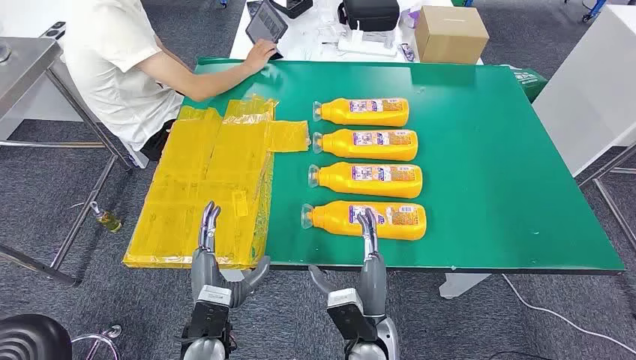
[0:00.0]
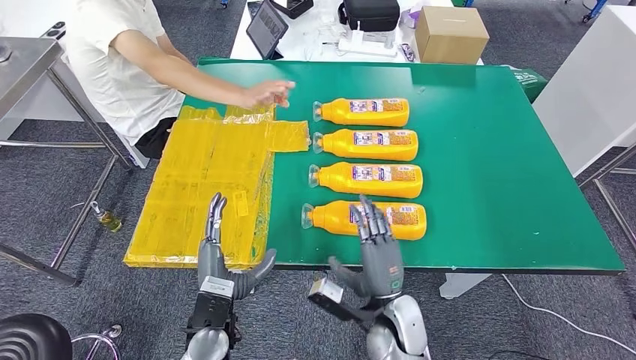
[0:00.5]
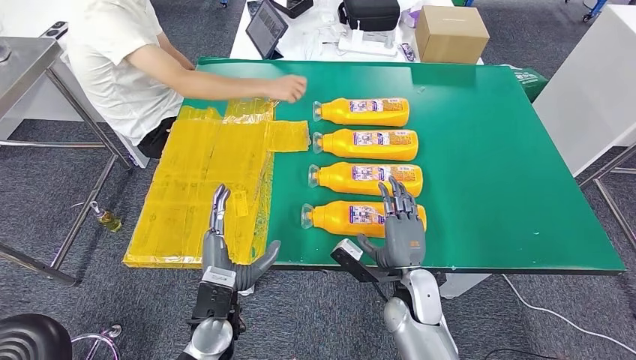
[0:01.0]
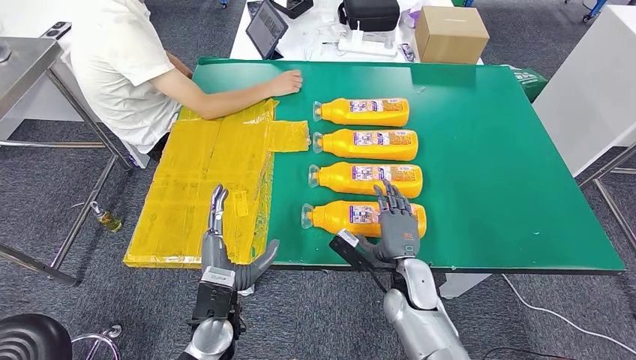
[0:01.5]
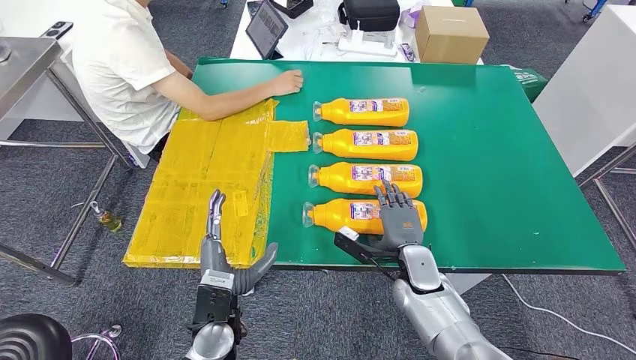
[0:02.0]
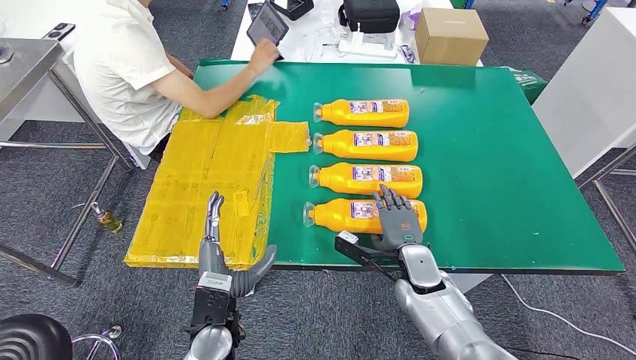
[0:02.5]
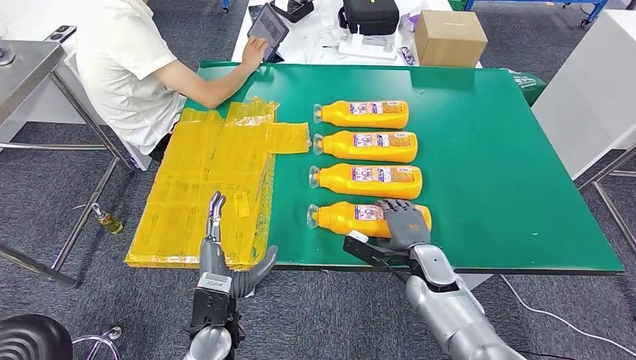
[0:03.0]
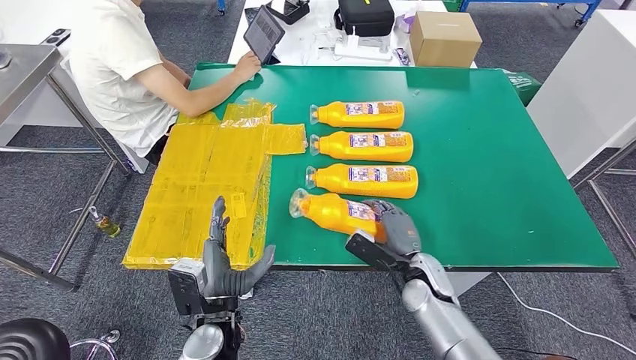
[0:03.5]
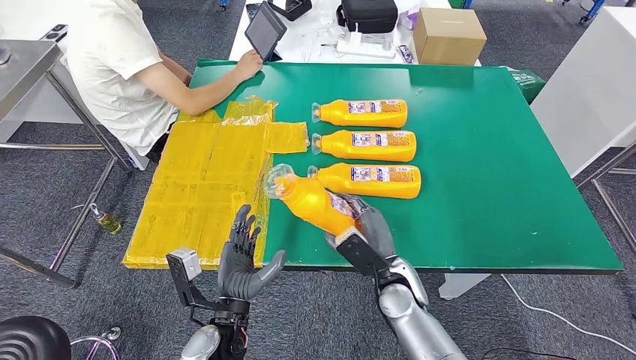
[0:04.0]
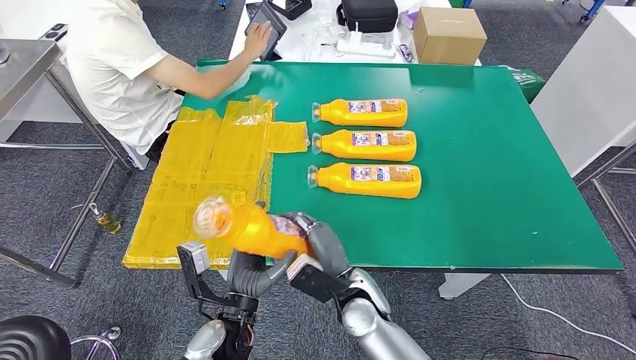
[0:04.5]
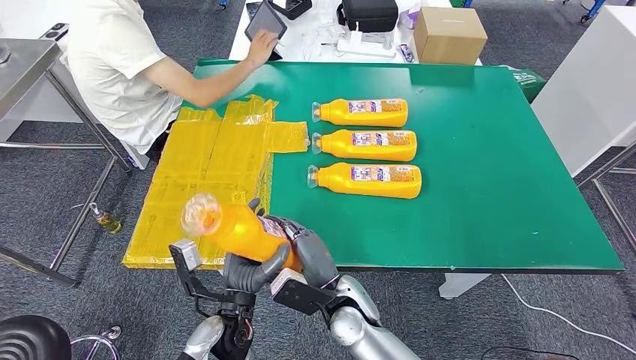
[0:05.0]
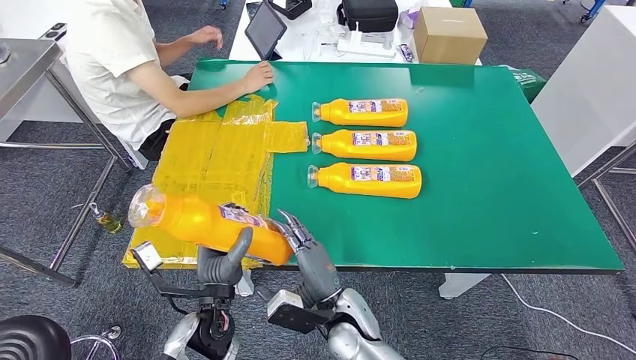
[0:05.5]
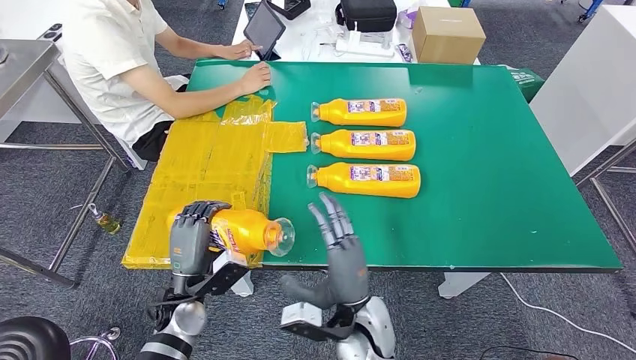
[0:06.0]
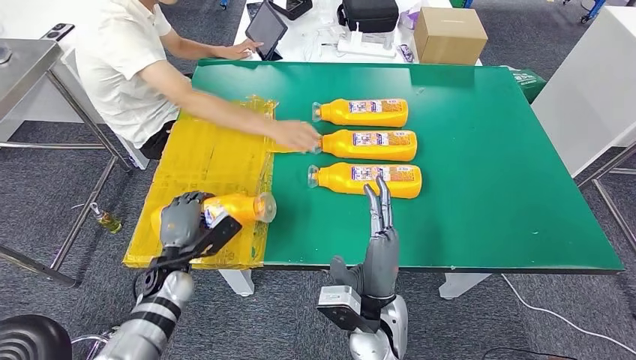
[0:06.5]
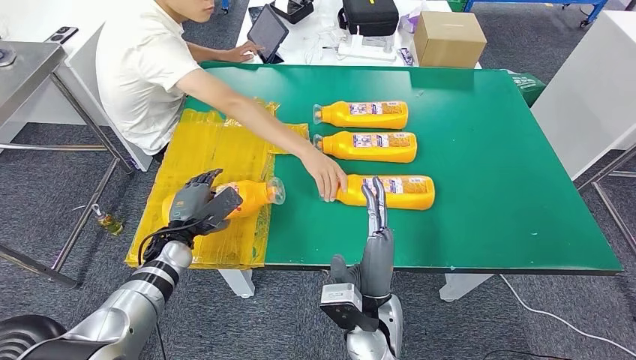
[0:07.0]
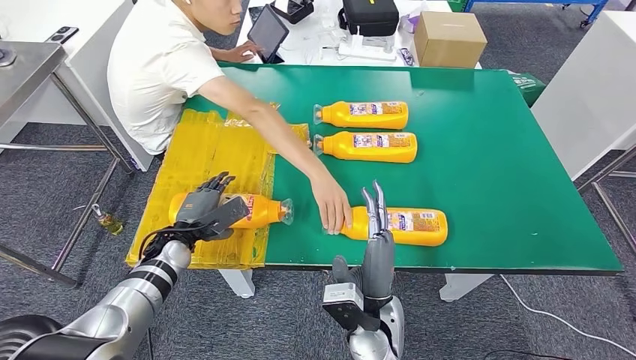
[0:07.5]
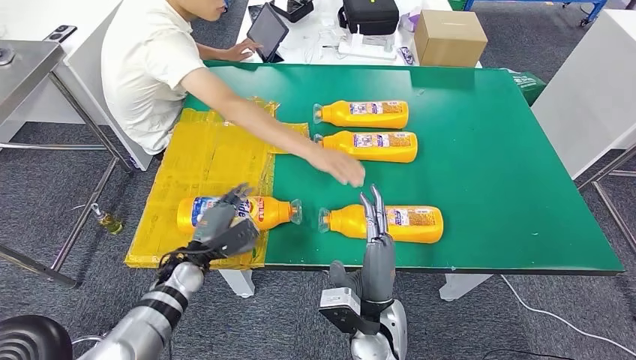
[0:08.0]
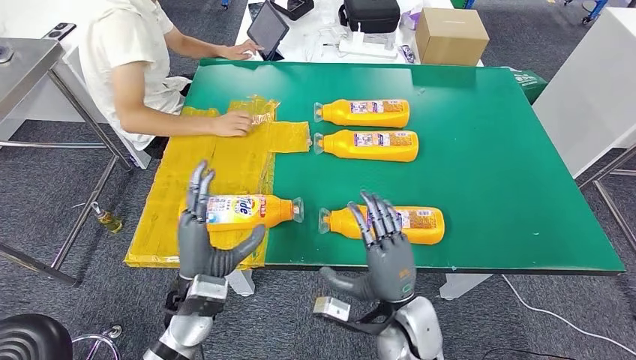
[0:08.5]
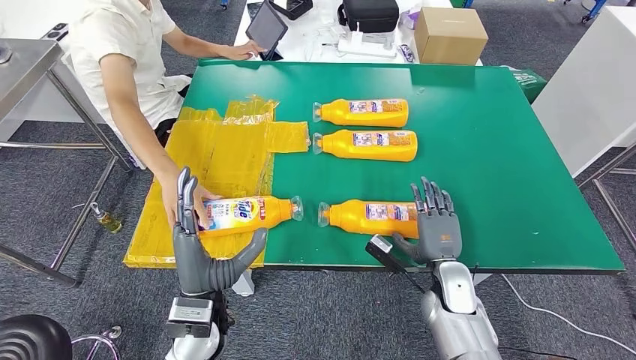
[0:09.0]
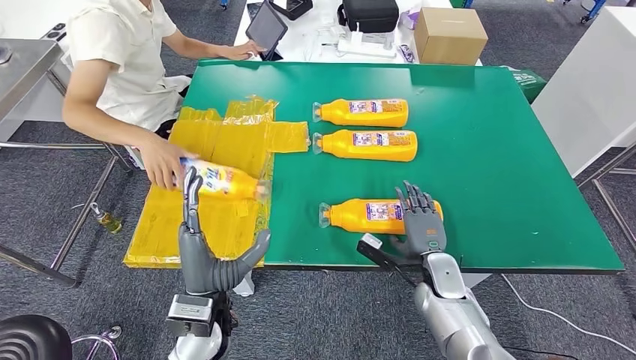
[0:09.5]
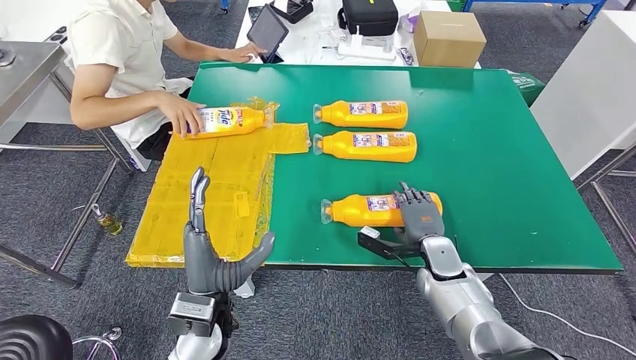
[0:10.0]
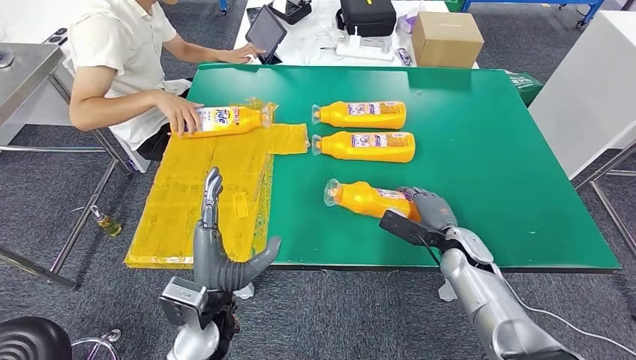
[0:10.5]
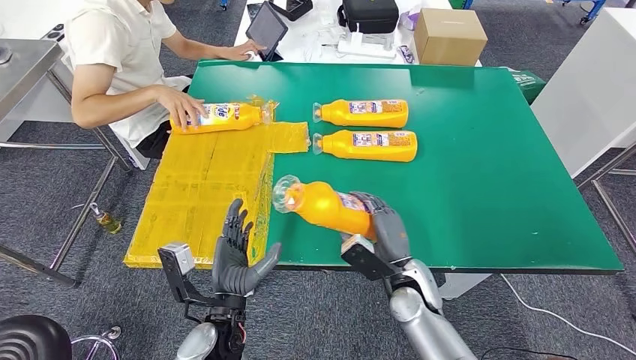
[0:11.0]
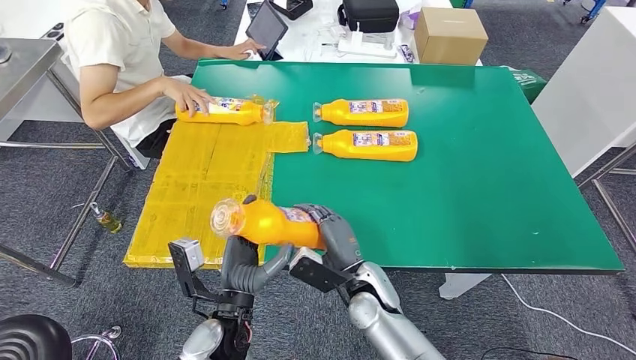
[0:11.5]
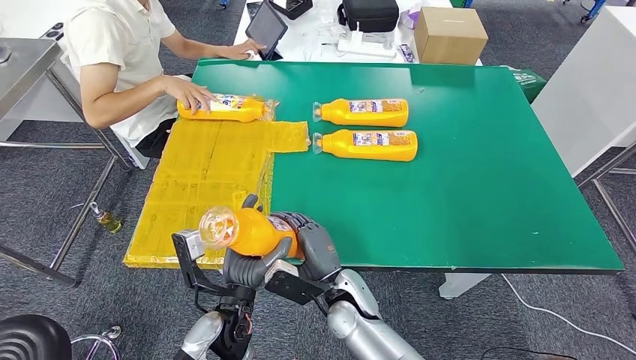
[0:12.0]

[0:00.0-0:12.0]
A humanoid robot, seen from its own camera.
Step, 0:00.0 to 0:05.0: Take the fast-moving consumer goods bottle from the table.
Step, 0:05.5 to 0:07.5: Flip the fast-moving consumer goods bottle to the front side.
0:02.0 to 0:04.0: The right hand ends up roughly 5 cm from where it was.
0:04.0 to 0:06.0: The right hand goes approximately 10 cm to the left and backward. The left hand moves to the left and forward, about 10 cm.

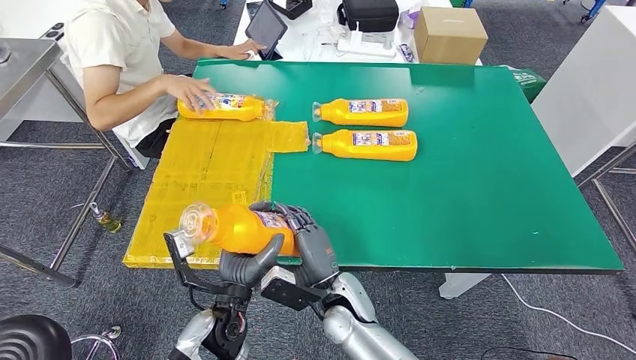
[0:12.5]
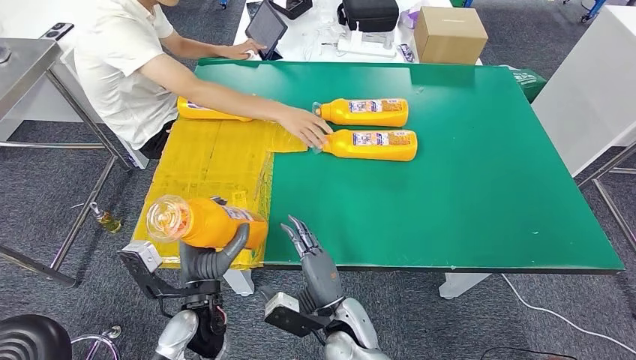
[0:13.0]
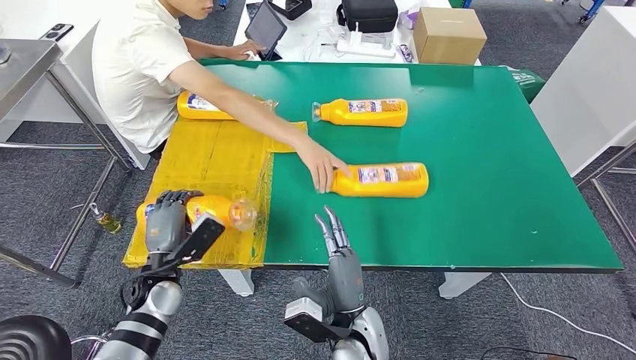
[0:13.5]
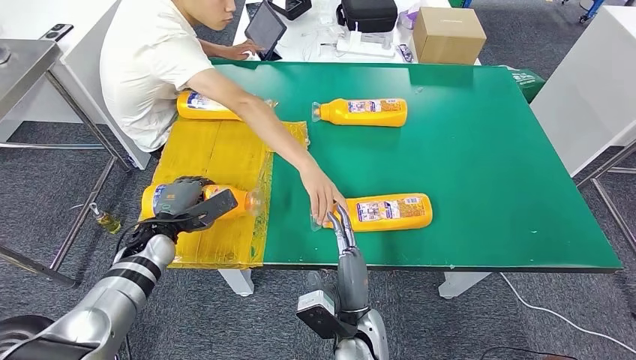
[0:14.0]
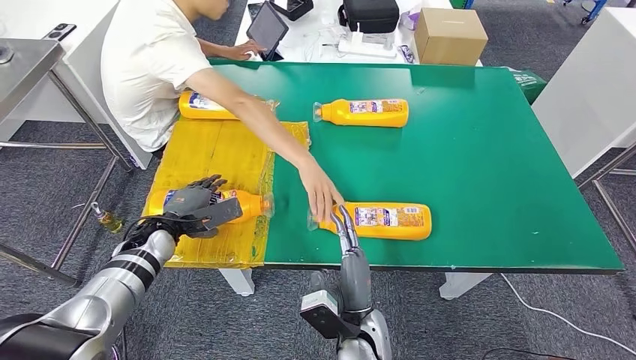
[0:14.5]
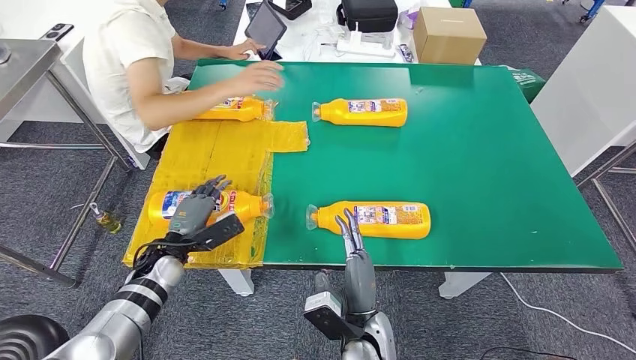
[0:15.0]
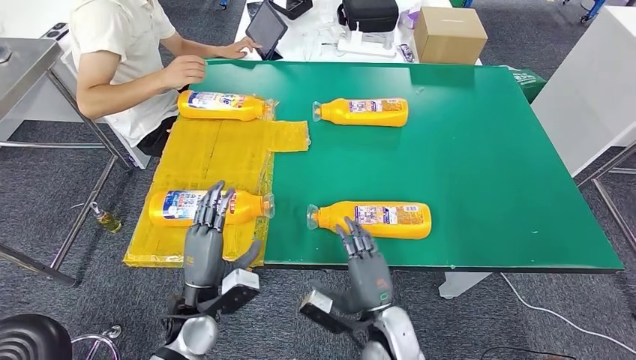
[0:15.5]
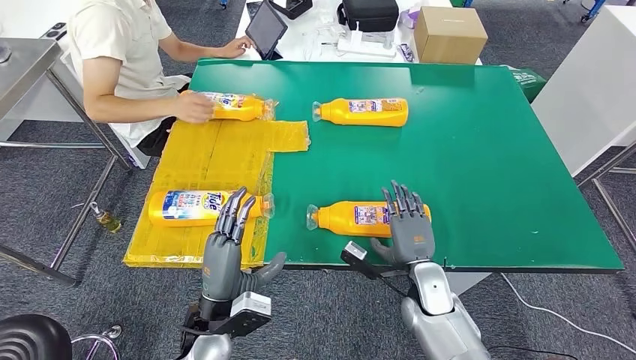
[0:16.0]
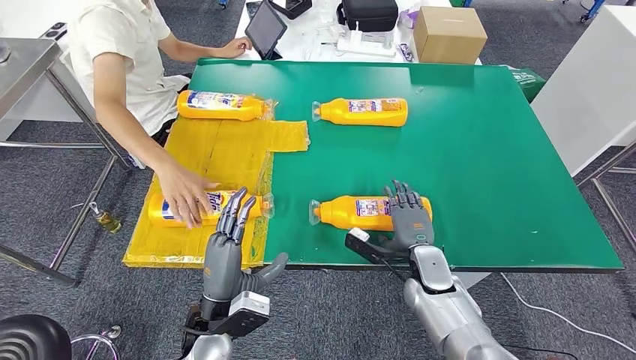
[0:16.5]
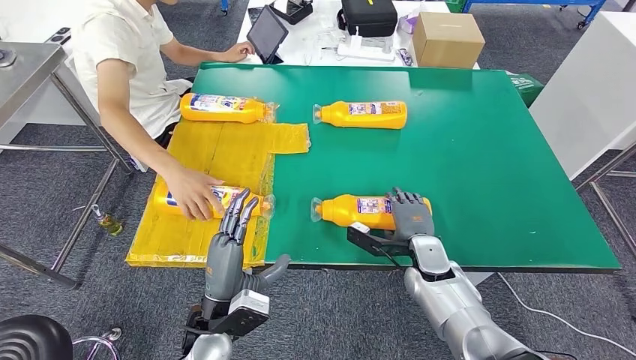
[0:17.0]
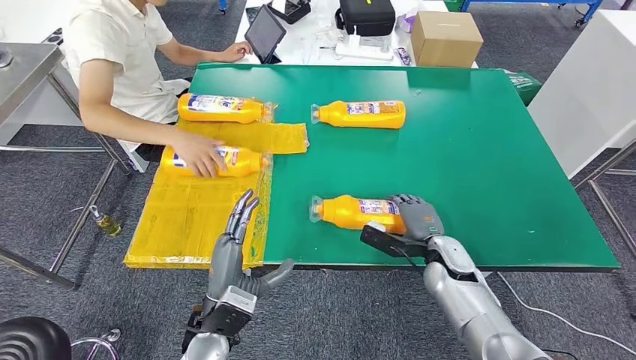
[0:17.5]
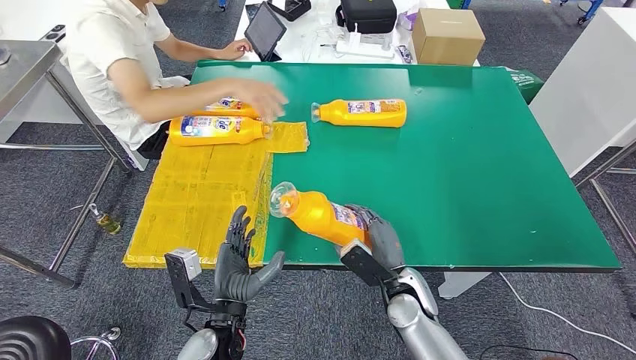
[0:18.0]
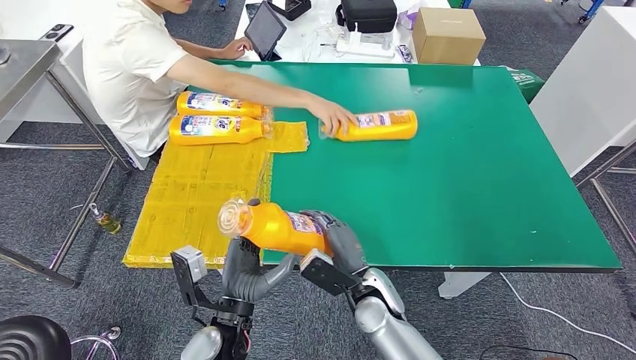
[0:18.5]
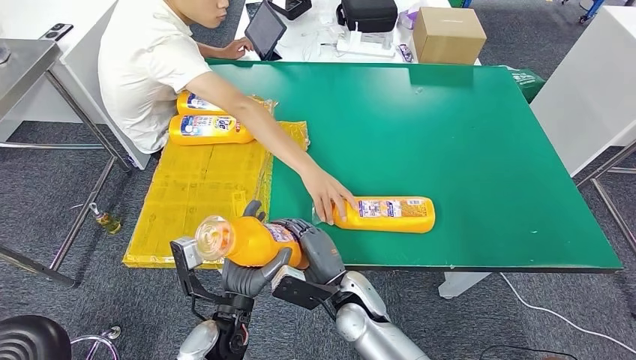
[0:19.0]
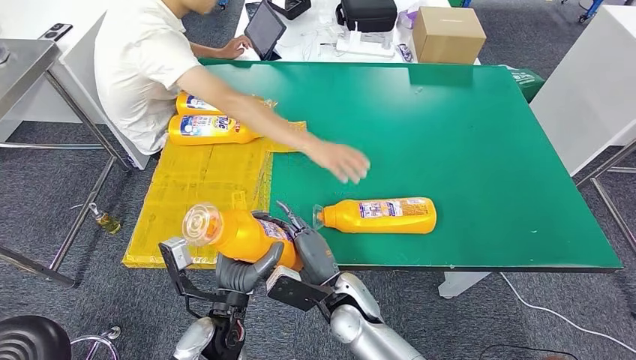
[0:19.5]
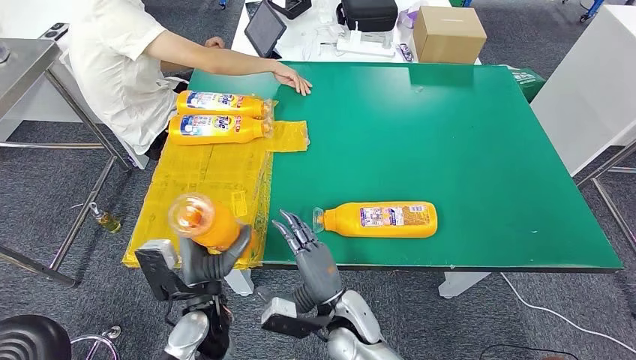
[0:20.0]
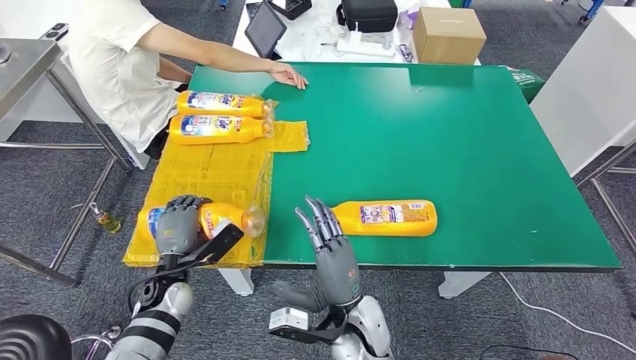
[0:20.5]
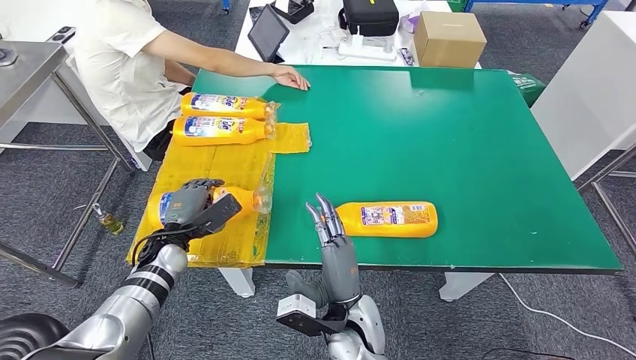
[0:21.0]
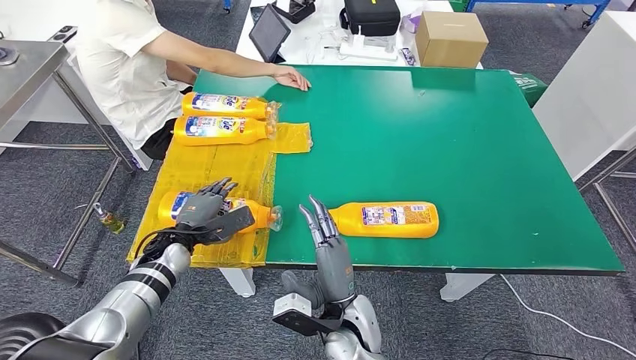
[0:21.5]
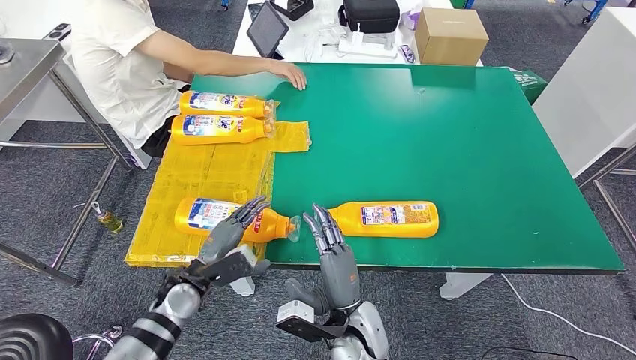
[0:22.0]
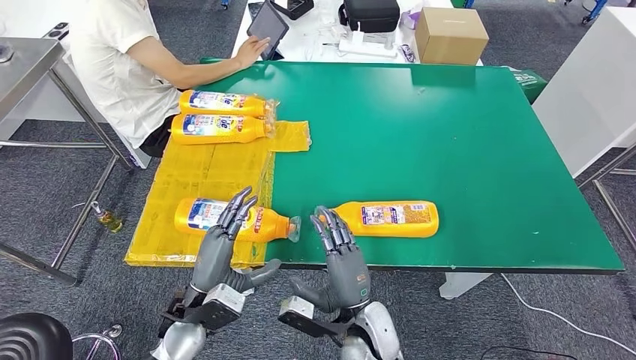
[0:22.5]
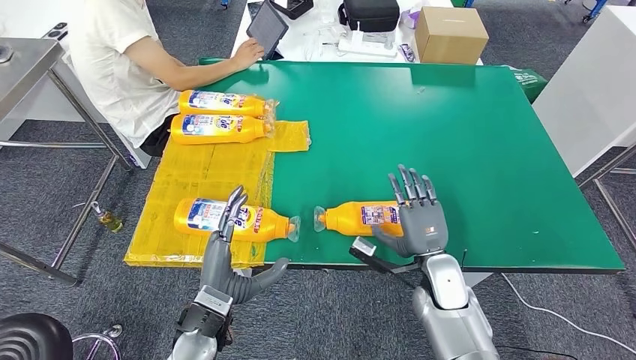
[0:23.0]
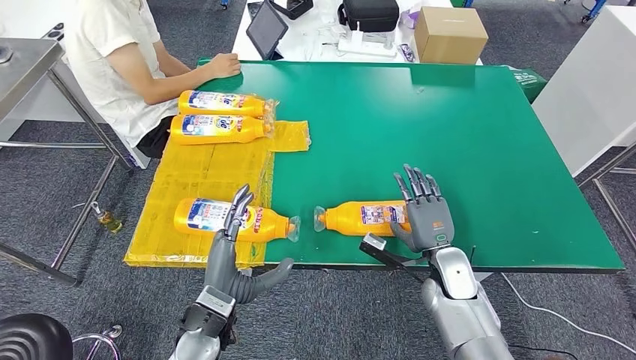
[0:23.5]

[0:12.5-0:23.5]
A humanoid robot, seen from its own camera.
Step, 0:12.5 to 0:14.5: Flip the fast-moving consumer goods bottle to the front side.
Step, 0:15.0 to 0:19.0: Pick up the fast-moving consumer goods bottle from the table.
Step, 0:19.5 to 0:21.0: Flip the fast-moving consumer goods bottle to the front side.
